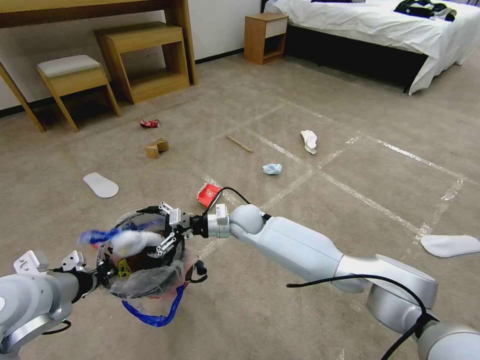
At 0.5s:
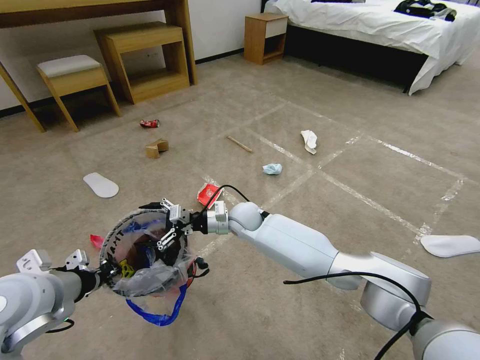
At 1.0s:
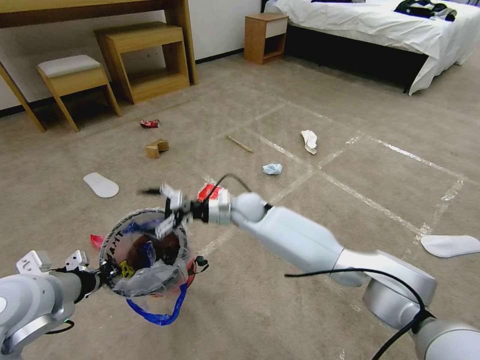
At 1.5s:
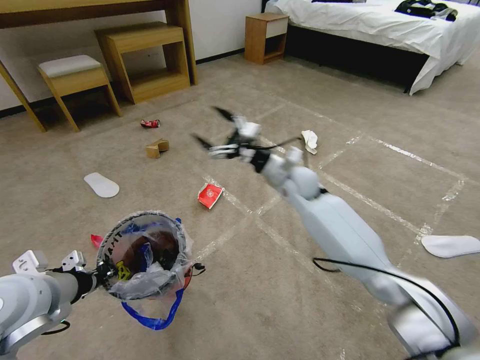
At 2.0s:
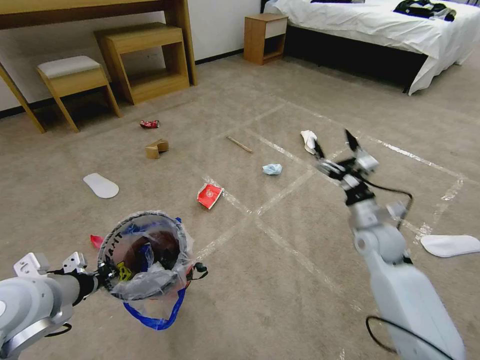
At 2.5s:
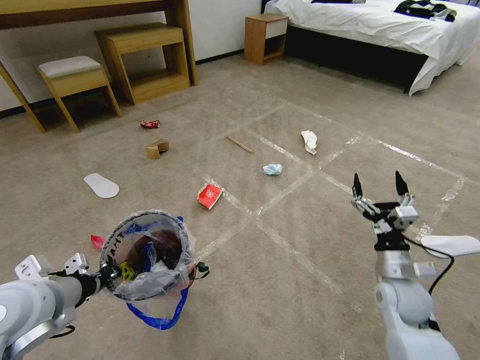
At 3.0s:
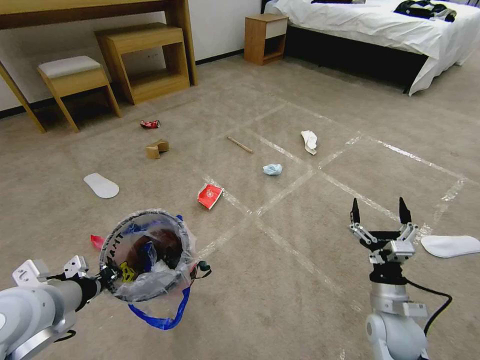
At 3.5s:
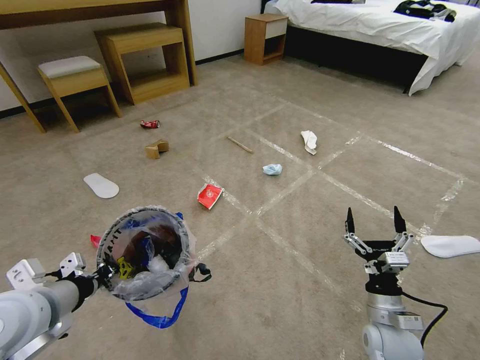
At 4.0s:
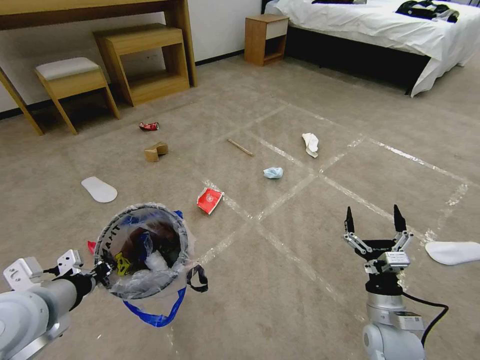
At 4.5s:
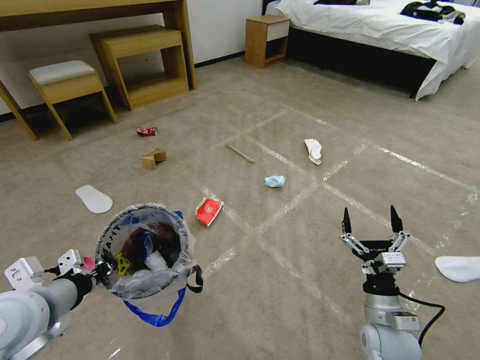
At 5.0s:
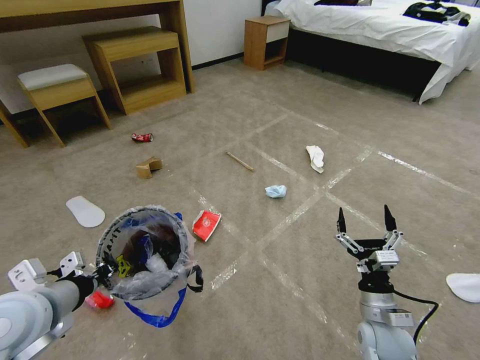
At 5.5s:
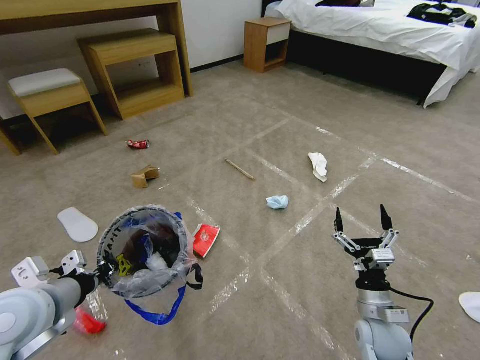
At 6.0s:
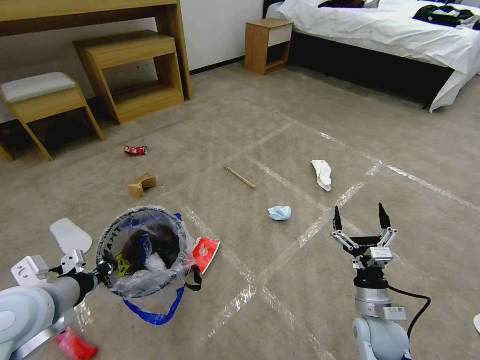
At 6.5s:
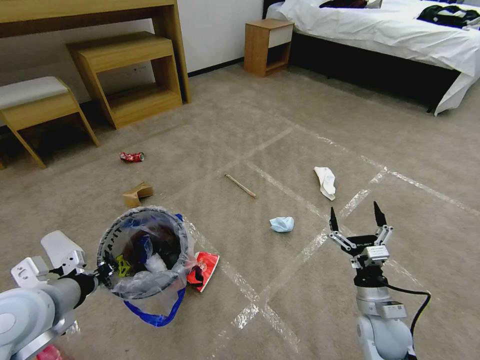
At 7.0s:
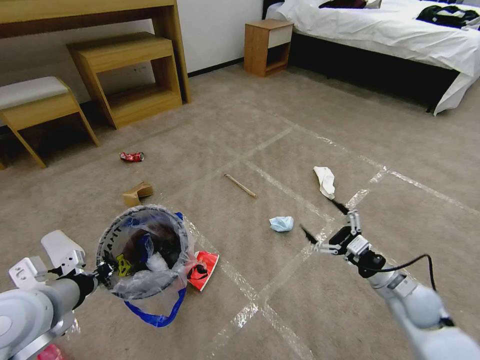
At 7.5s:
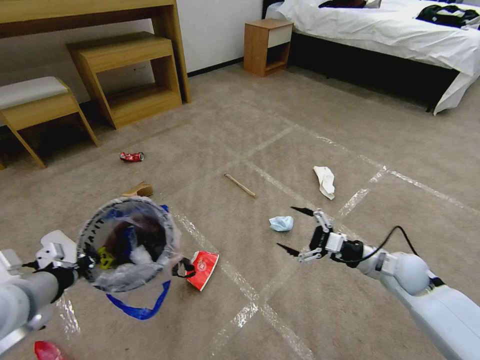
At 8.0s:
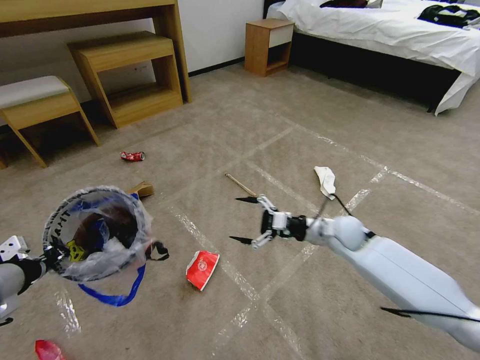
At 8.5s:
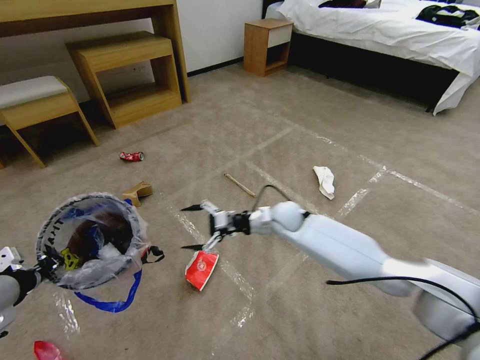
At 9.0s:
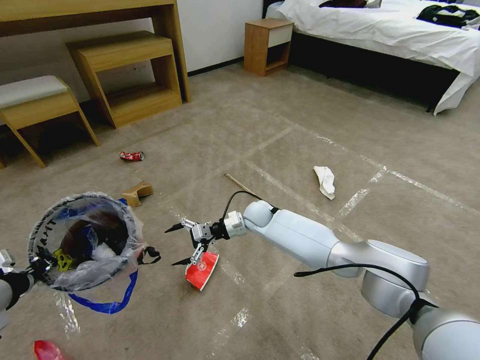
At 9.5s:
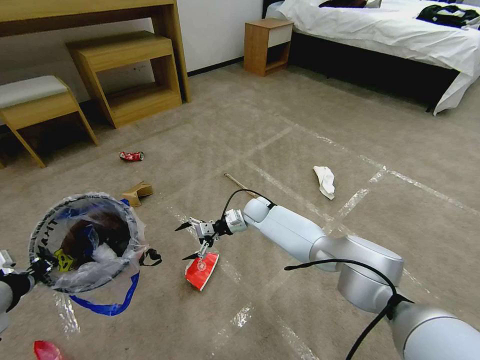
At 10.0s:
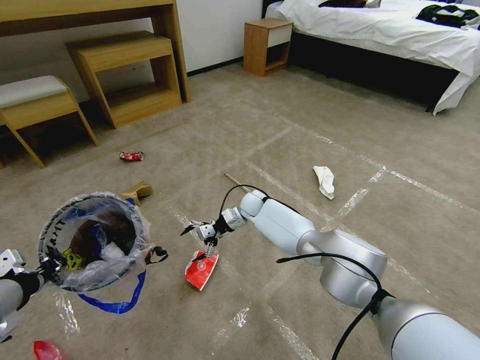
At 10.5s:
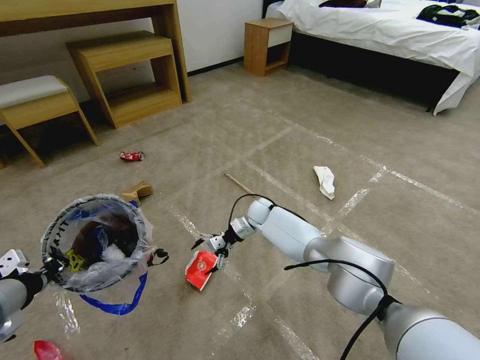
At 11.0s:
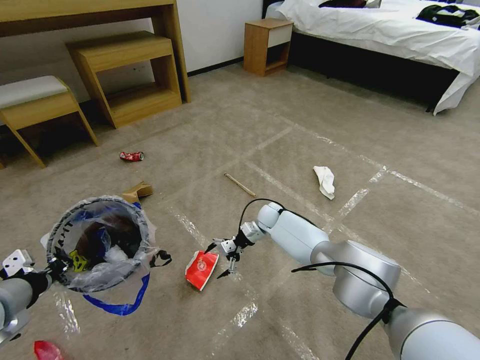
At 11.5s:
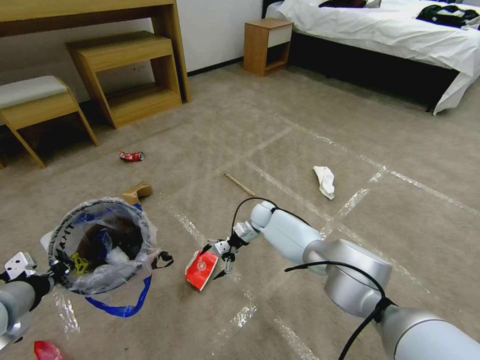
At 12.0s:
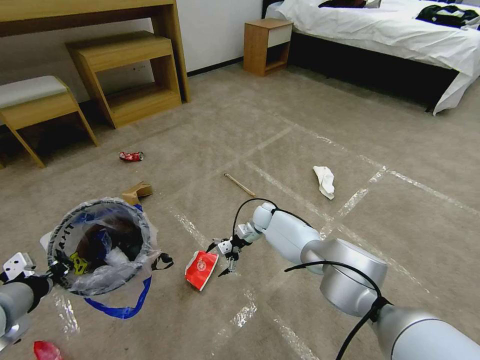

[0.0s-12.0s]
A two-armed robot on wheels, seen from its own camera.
Task of the whole recording: Pick up the trash bin and place the garbage on the floor into it.
0.0s to 2.0s: The right gripper travels to the right by some 30 cm.
2.0s to 4.0s: The right gripper is displaced backward and downward by approximately 20 cm.
6.0s to 8.0s: The right gripper goes about 20 cm forward; the left gripper moves to the left and upward, some 10 cm.
8.0s to 10.0s: The right gripper travels to the left and forward by roughly 25 cm.
10.0s to 12.0s: The right gripper shifts roughly 5 cm downward.

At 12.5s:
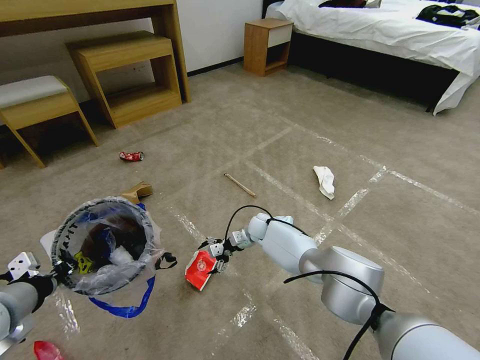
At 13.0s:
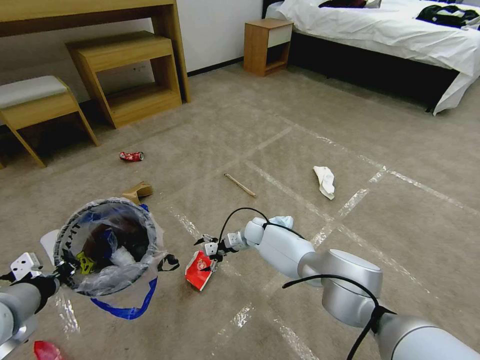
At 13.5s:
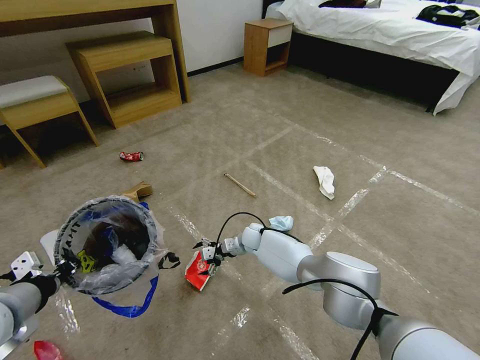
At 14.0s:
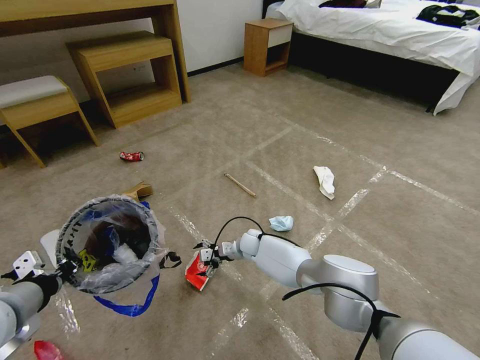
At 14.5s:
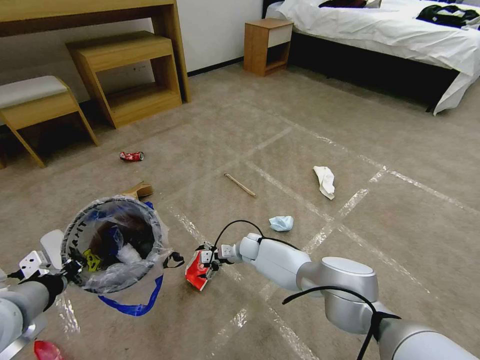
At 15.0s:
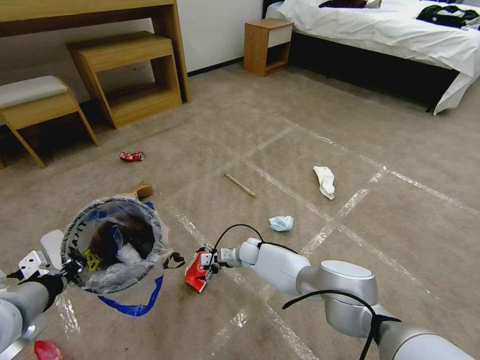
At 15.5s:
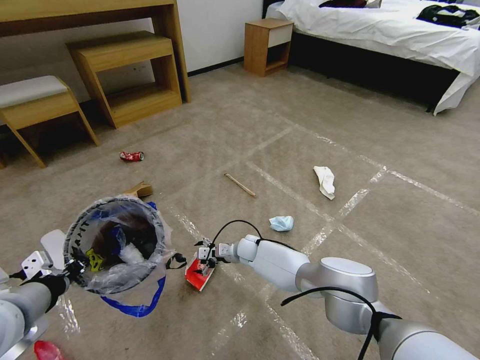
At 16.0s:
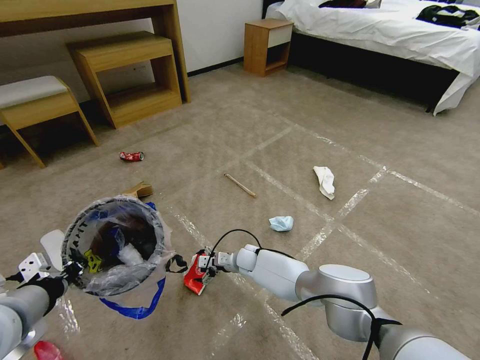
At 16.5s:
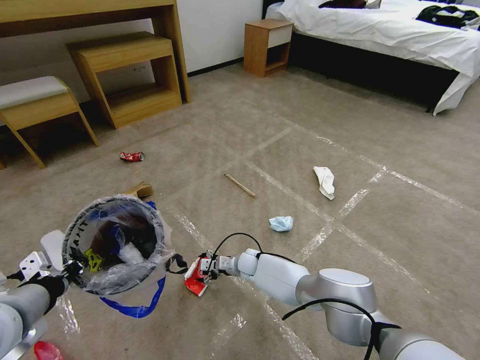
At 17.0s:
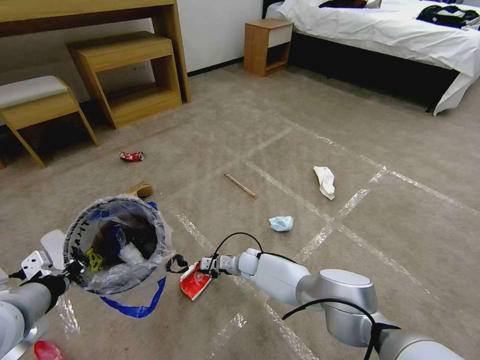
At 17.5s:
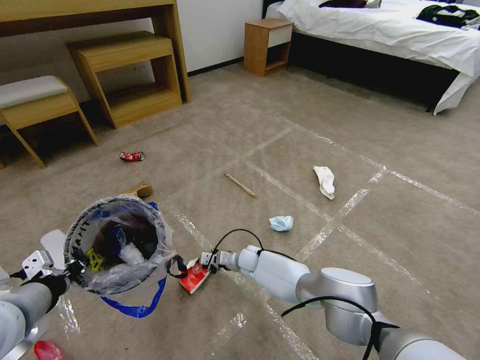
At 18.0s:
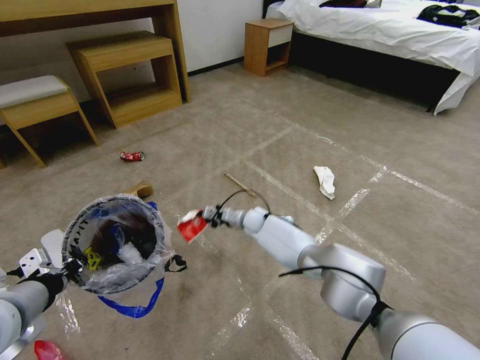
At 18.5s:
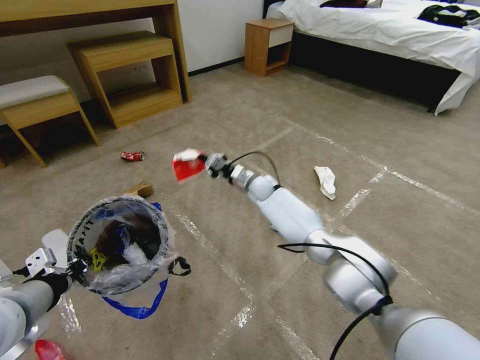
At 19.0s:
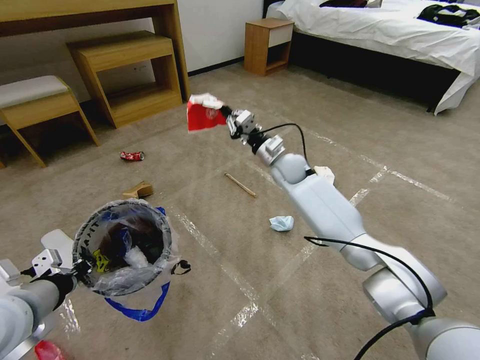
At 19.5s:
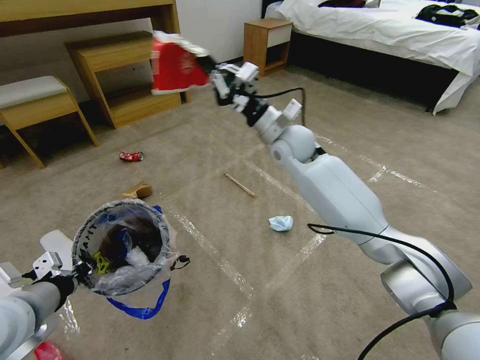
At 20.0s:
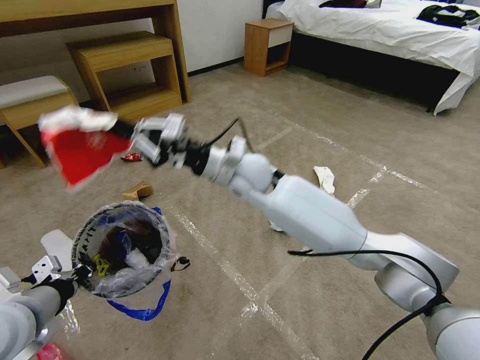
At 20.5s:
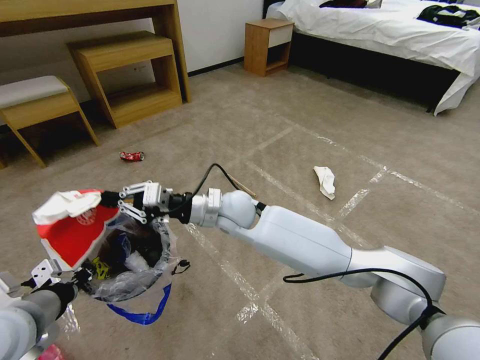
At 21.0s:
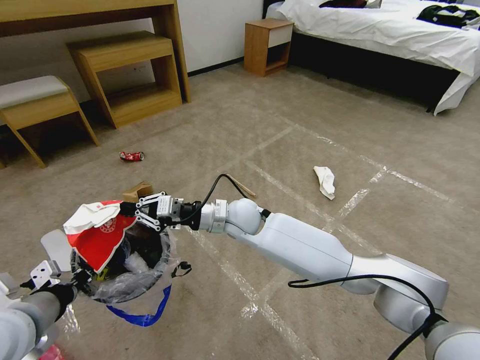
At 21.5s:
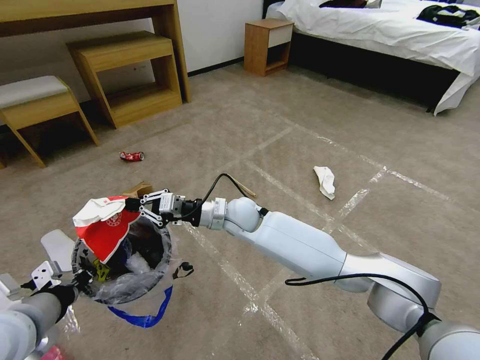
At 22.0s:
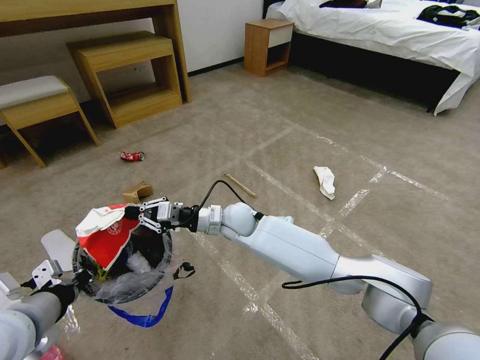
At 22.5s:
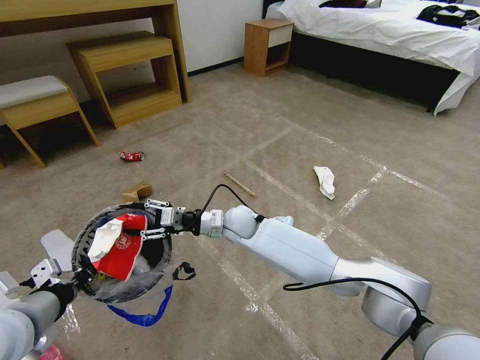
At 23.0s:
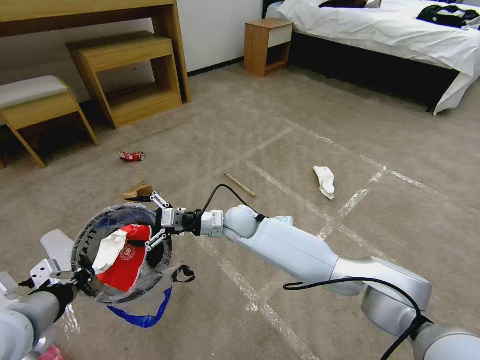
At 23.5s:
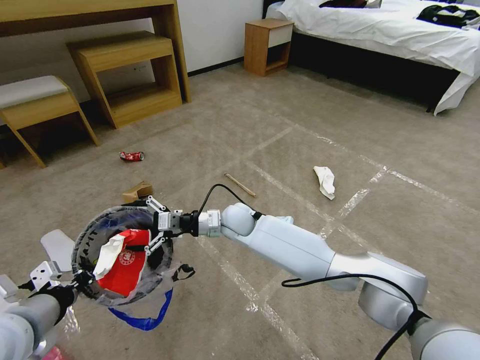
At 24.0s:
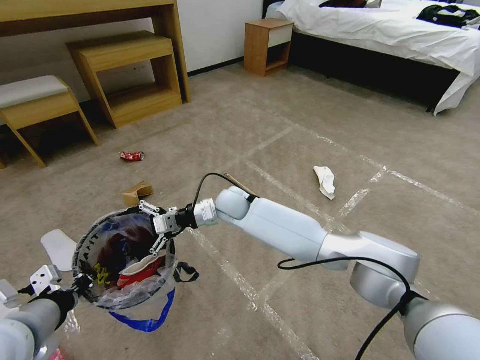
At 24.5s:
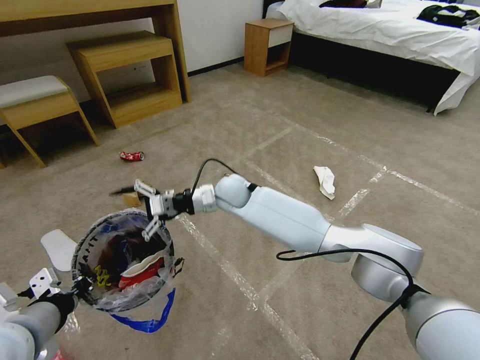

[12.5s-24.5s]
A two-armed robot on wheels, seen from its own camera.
Task of the whole recording: Pick up the trash bin and place the garbage on the floor into it.
12.5s to 14.5s: The right gripper shifts roughly 5 cm backward.
14.5s to 16.5s: The right gripper changes place by some 5 cm.
16.5s to 18.5s: The right gripper heads upward and forward, covering some 25 cm, and closes its fingers.
18.5s to 20.5s: The right gripper goes about 25 cm backward, to the left and upward.
20.5s to 22.5s: The right gripper heads downward, covering approximately 10 cm, and opens its fingers.
22.5s to 24.5s: The right gripper goes some 10 cm upward and forward, and opens.

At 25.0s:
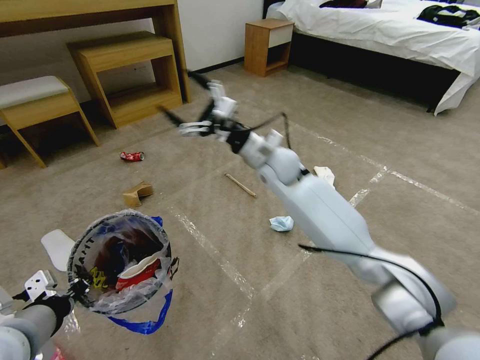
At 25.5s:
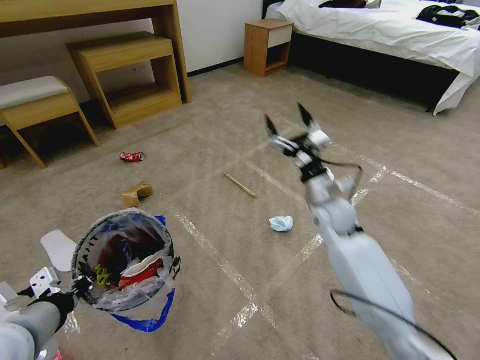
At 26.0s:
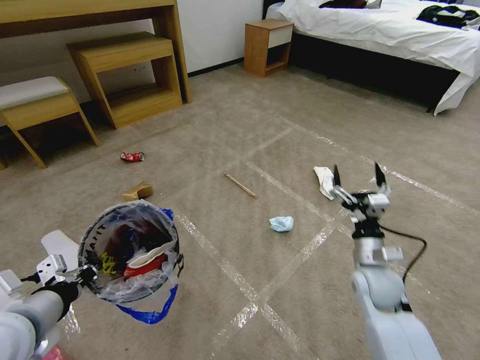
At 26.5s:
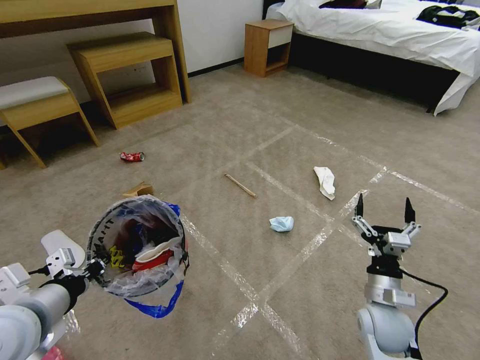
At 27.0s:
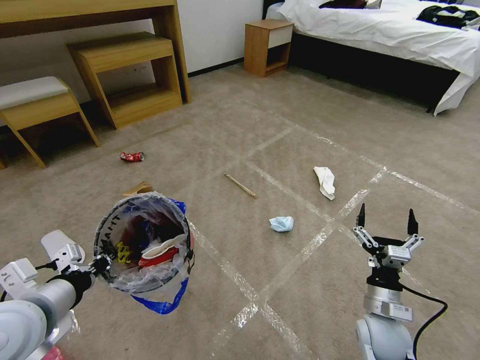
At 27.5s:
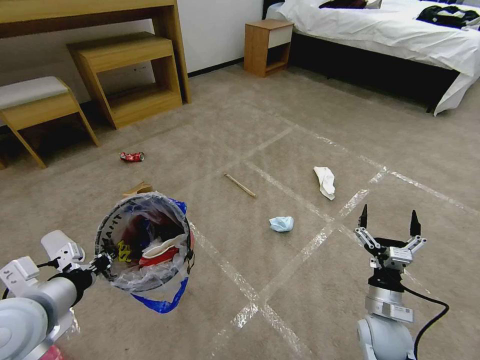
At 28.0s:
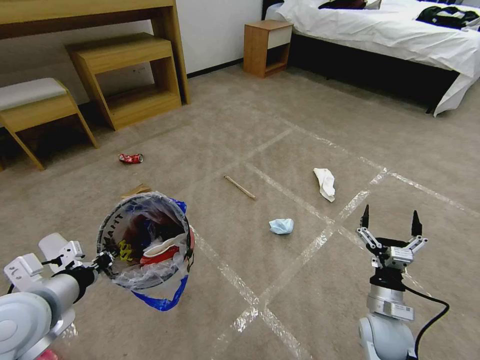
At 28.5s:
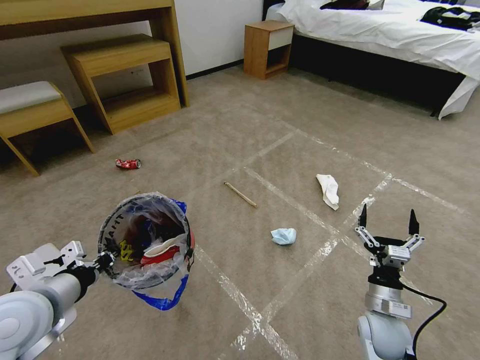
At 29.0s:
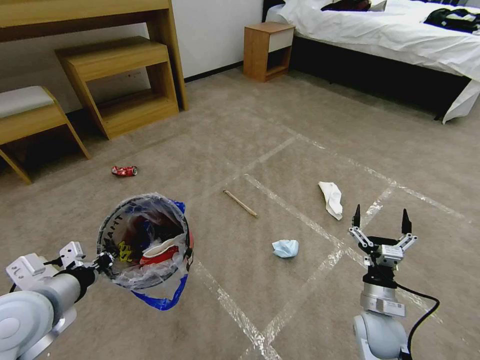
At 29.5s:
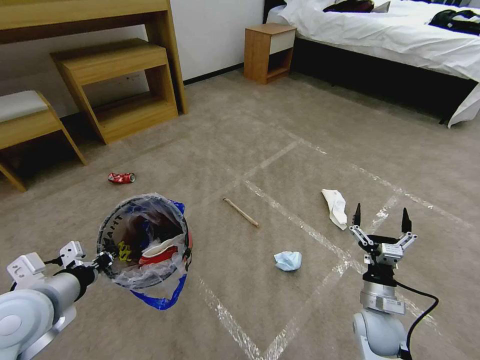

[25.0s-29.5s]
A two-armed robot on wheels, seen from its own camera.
Task of the whole recording: Pick up the trash bin and place the garbage on the floor into it.
25.0s to 27.0s: The right gripper shifts some 50 cm backward, to the right and downward.
